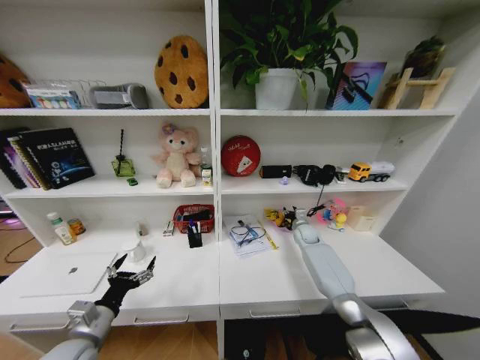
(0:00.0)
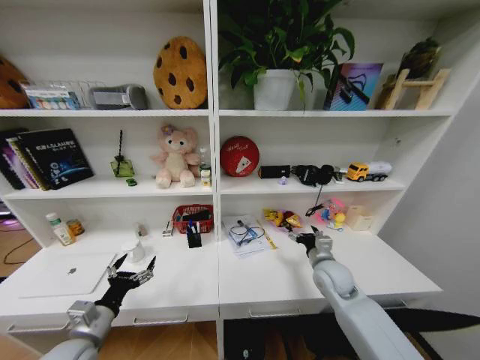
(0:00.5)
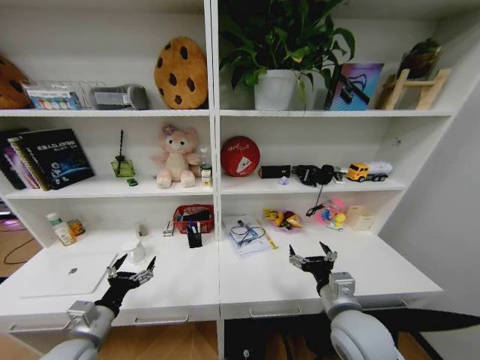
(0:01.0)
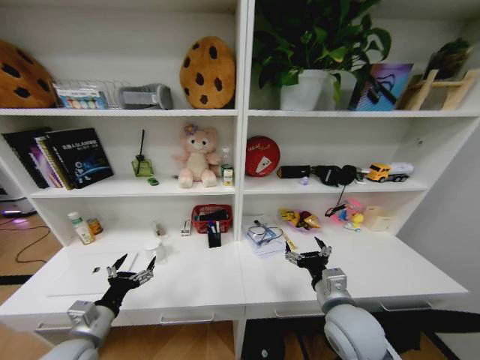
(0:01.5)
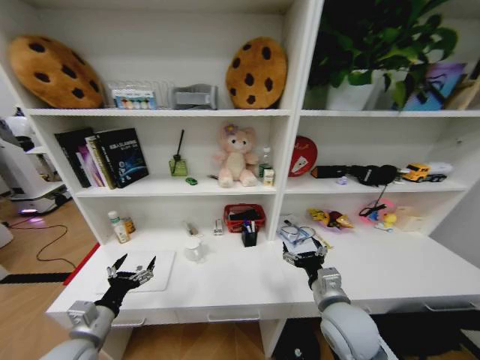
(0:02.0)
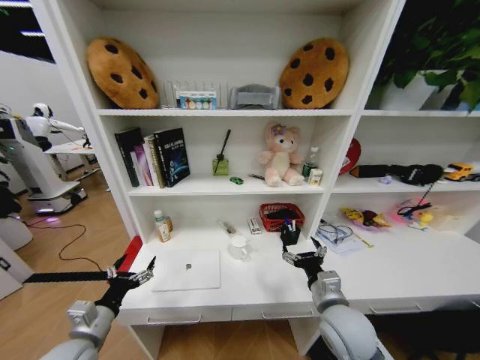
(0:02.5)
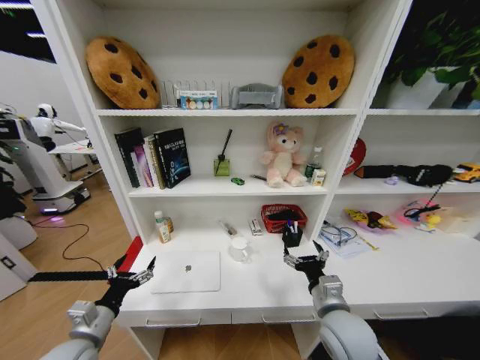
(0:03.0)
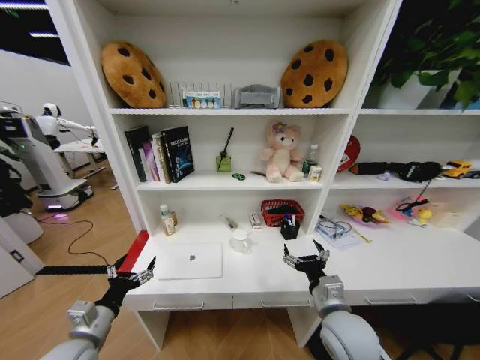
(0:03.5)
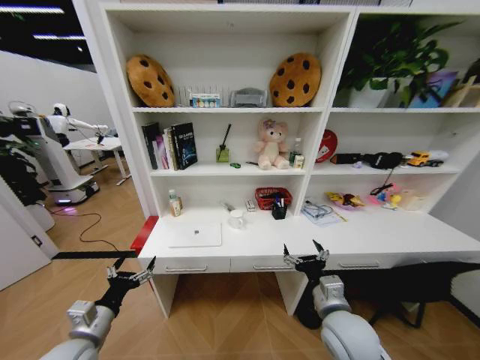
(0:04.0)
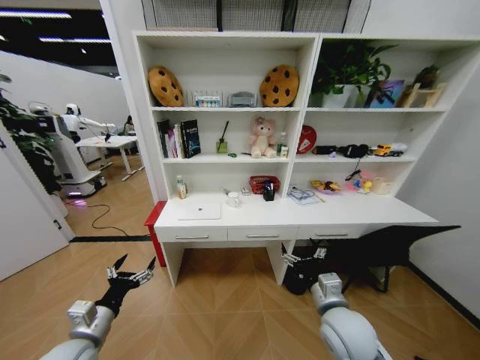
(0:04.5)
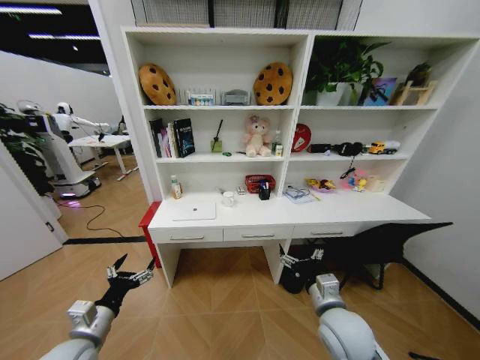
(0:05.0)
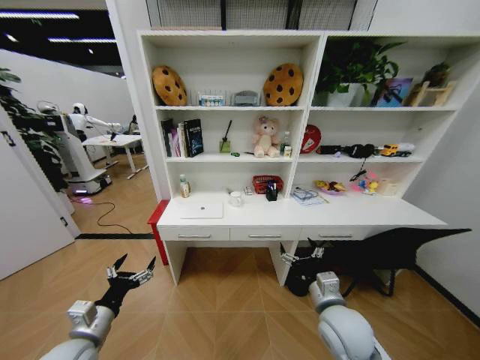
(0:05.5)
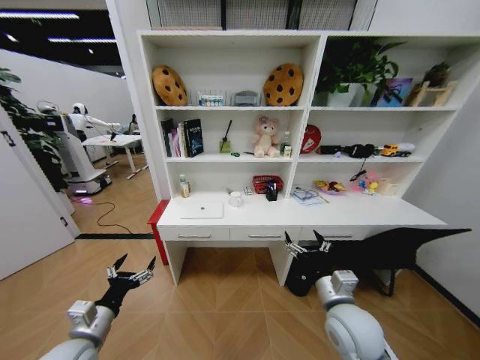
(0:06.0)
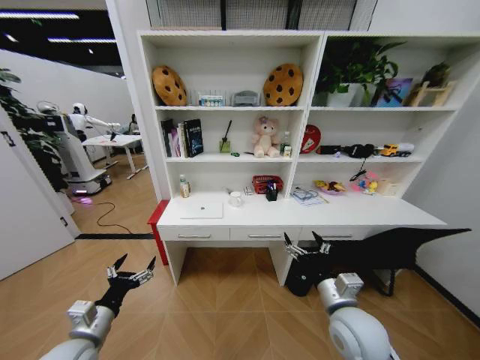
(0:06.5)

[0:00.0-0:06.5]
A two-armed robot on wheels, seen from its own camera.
Task of the whole recording: Organize the objects on the table.
0:00.0 to 0:02.0: The right gripper is displaced backward by approximately 35 cm, and opens its fingers.
0:04.5 to 0:06.5: The grippers make only small movements.
